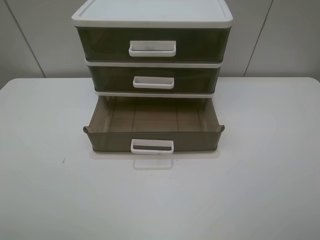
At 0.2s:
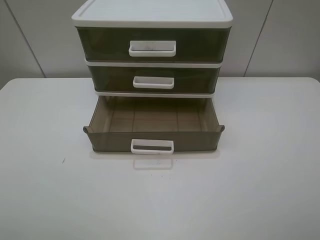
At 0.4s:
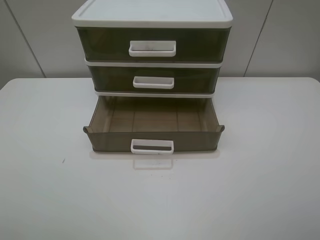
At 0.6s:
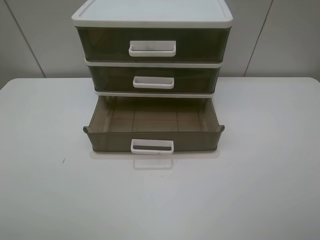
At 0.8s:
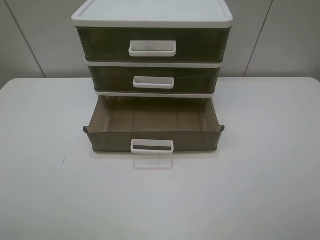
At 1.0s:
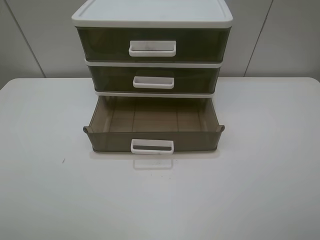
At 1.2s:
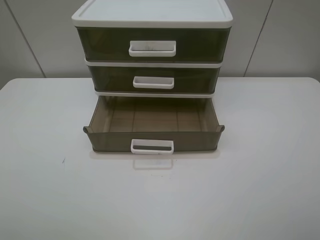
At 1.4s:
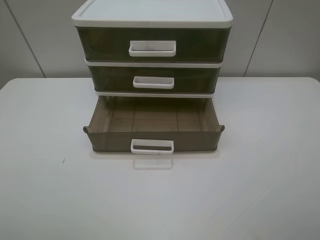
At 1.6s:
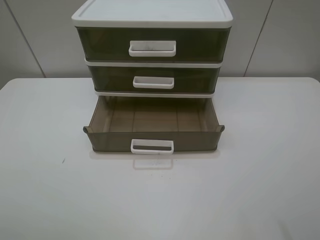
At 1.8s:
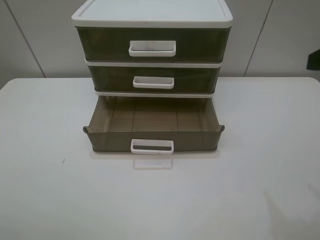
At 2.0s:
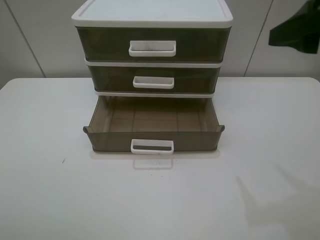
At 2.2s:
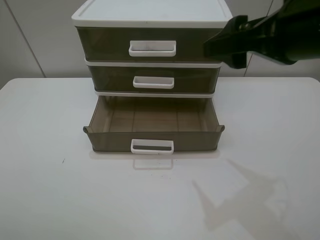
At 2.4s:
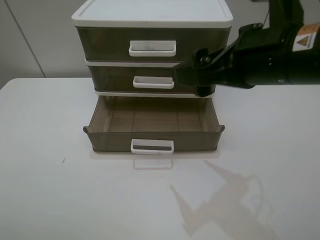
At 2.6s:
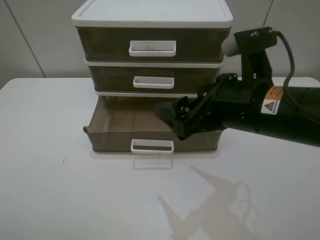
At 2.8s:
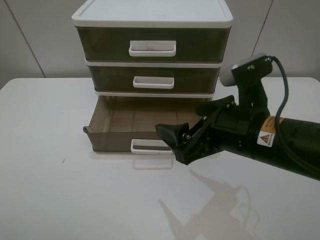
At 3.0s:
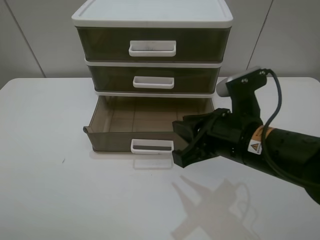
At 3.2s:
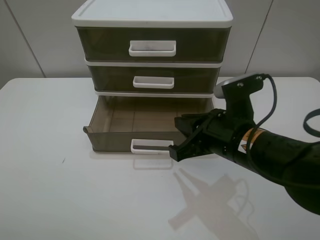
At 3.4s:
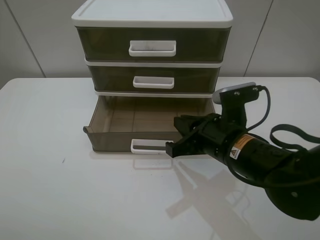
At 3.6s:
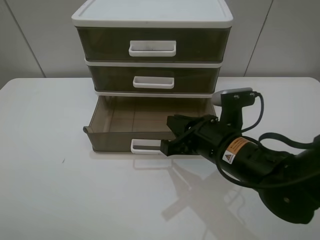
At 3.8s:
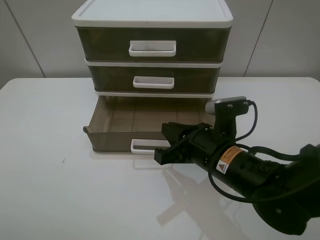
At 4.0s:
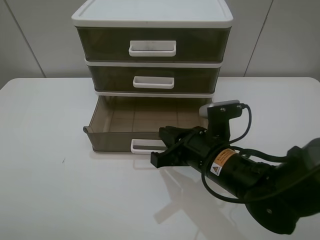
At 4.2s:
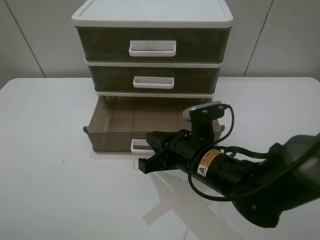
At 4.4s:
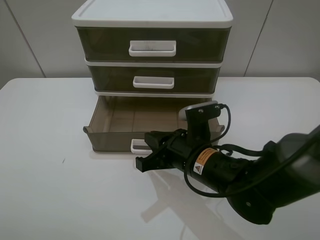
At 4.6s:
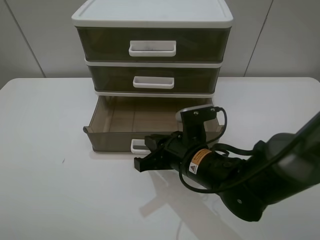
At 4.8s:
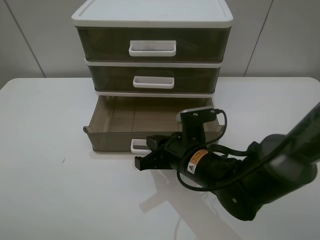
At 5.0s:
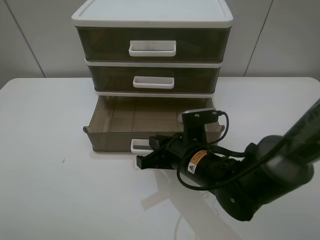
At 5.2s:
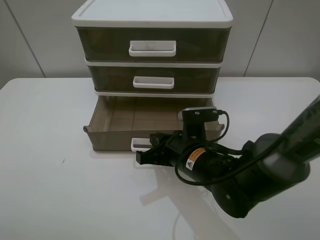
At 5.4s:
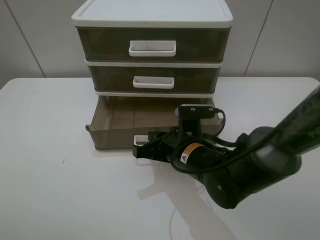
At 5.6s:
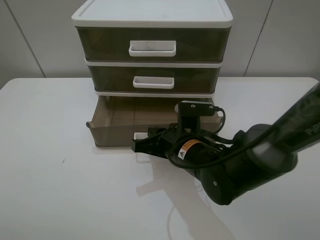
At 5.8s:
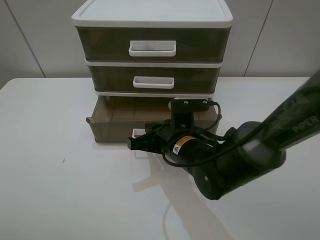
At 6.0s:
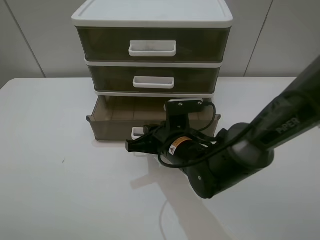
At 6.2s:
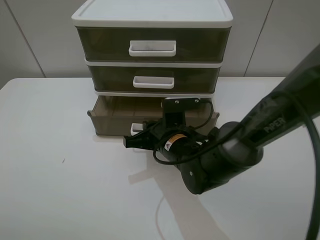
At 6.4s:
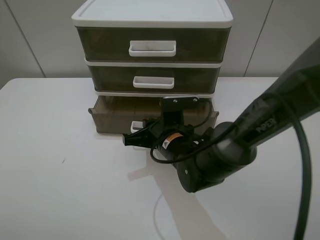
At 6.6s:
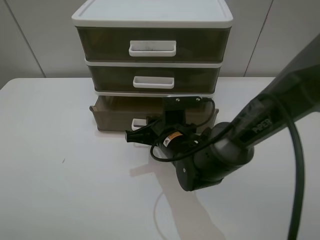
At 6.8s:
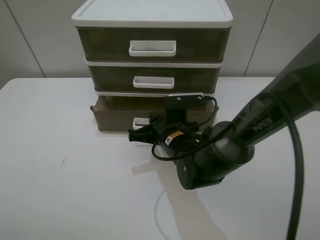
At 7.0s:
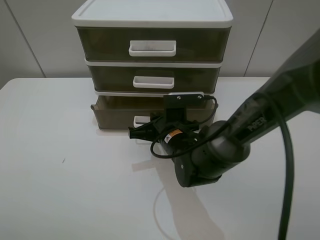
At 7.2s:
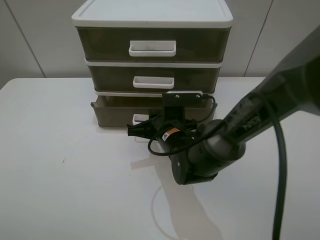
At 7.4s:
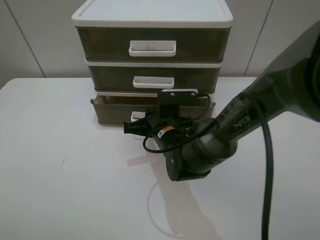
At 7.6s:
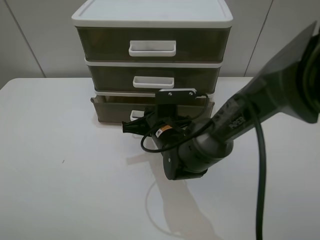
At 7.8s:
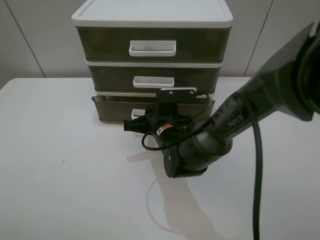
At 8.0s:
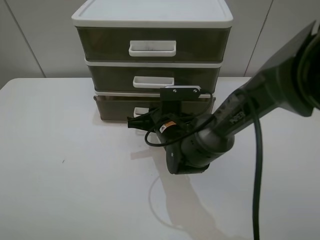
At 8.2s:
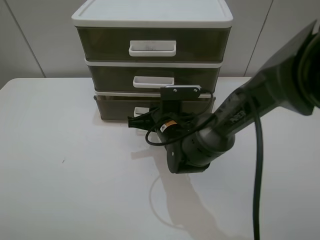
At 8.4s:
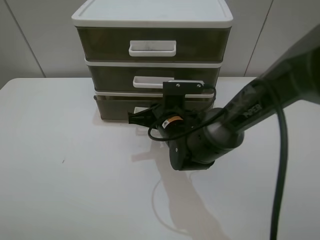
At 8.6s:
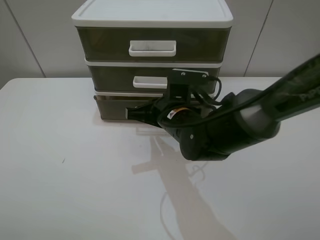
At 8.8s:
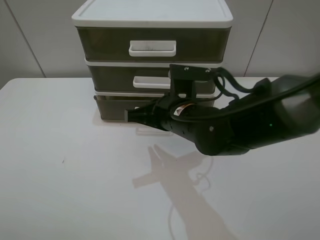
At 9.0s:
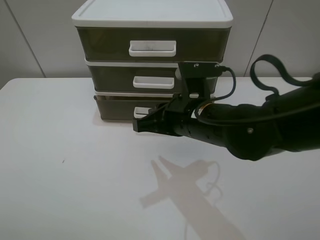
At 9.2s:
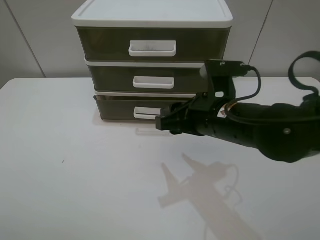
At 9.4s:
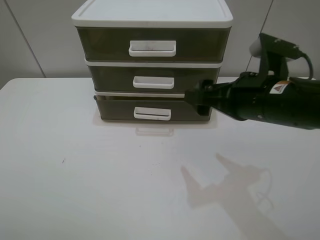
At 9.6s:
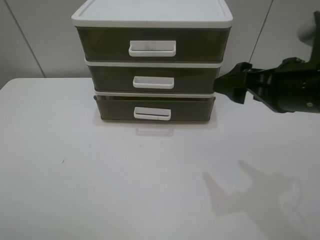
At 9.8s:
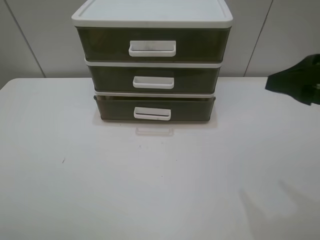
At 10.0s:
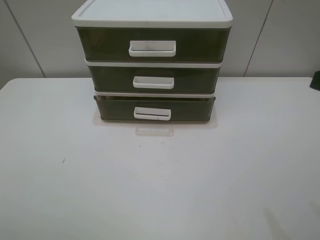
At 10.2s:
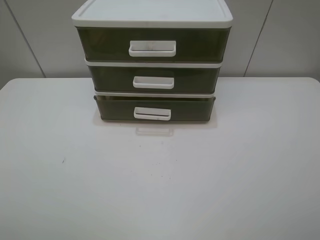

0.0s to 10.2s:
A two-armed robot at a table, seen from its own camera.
Task of the whole recording: close the bottom drawer.
Step, 0.0s to 5.0s: Use the right gripper to contact the bottom layer of the storage cabinet.
Step, 5.2s to 8.2s: Push the bottom drawer closed.
1.4s to 3.0s: The right gripper goes approximately 25 cm to the left, forward and downward, and closes.
3.0s to 4.4s: The right gripper heads downward and to the left, covering roughly 10 cm.
4.4s to 5.8s: There are only small adjustments of the grippers.
5.8s to 7.2s: There are only small adjustments of the grippers.
7.2s to 8.8s: The right gripper travels upward by some 5 cm.
8.8s to 10.2s: The right gripper shifts about 35 cm to the right, backward and upward, and opens up.

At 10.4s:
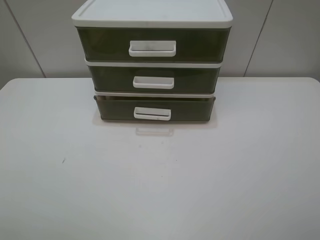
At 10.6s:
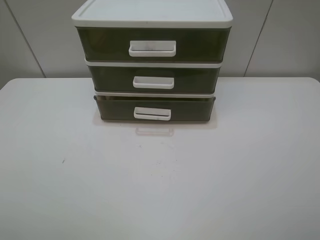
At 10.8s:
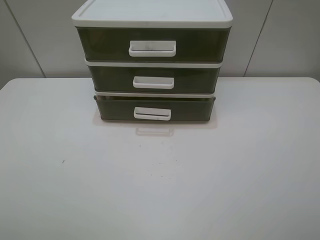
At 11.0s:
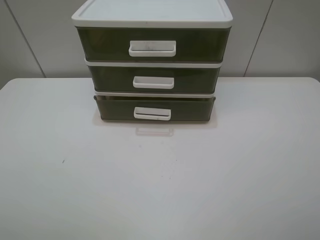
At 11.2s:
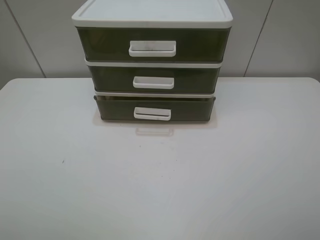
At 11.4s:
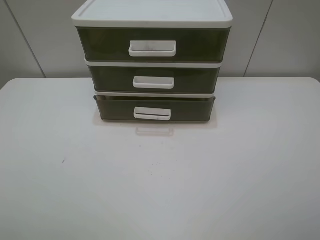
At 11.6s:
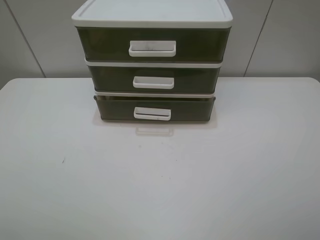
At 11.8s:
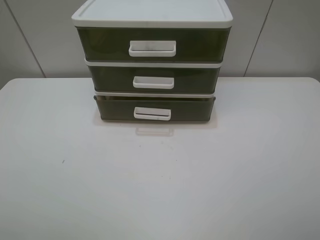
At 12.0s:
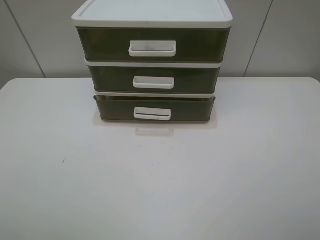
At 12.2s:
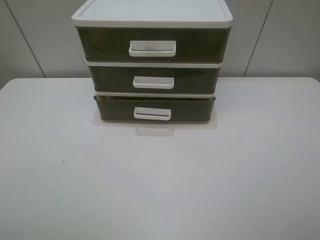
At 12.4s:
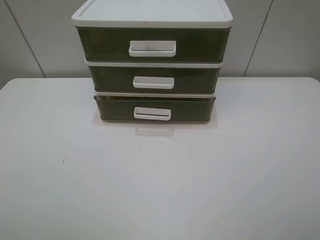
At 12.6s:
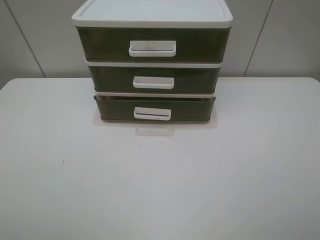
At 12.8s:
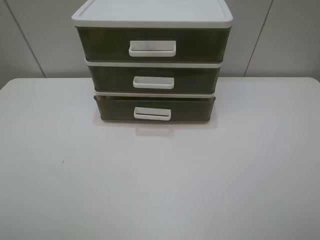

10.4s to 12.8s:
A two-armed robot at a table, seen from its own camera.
Task of the whole recording: close the bottom drawer.
11.6s to 12.8s: Both grippers stay about where they are.
